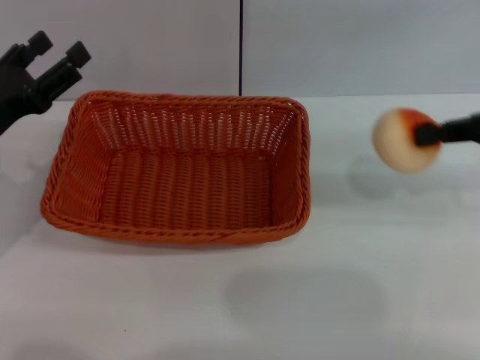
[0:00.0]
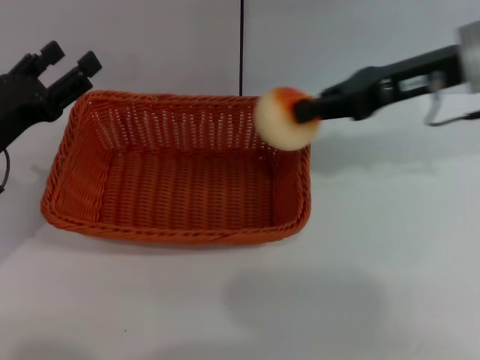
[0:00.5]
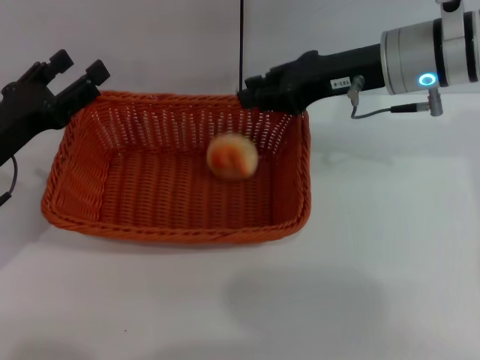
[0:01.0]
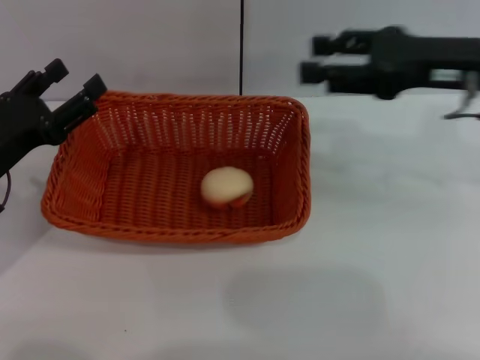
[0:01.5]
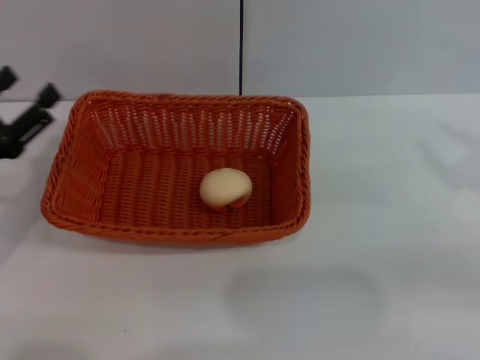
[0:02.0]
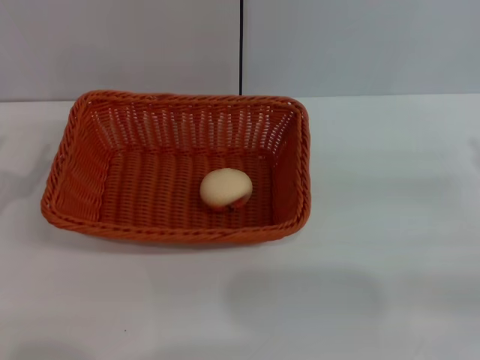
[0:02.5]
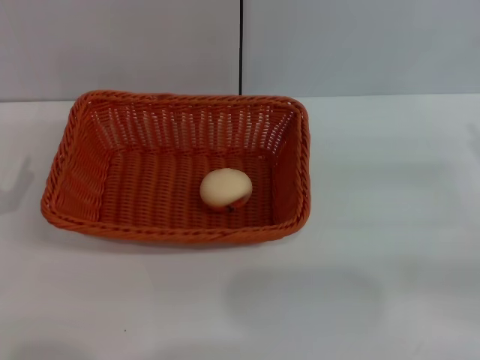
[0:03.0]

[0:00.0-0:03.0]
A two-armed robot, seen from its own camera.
Step, 0:00.0 to 0:01.0: Place the egg yolk pastry into the basket with the right gripper.
0:00.0 to 0:01.5: The right gripper shifts roughly 5 cm to the left, and opens up.
0:01.5 to 0:03.0: The left gripper moves backward, approximately 5 cm. The right gripper is displaced to the right, downward and backward by some 20 cm.
